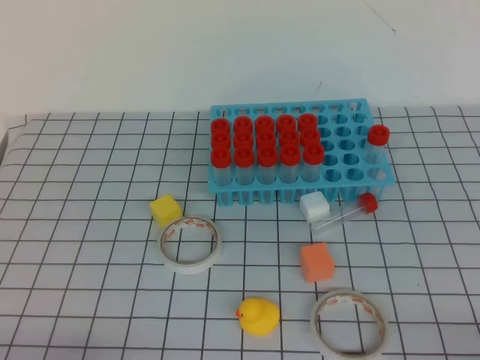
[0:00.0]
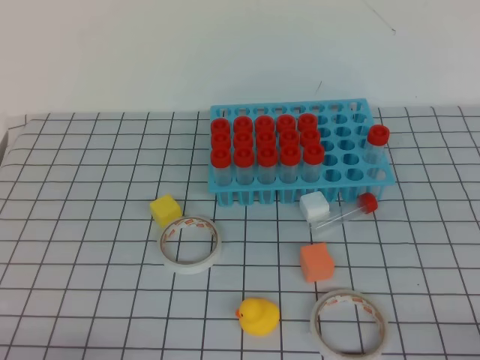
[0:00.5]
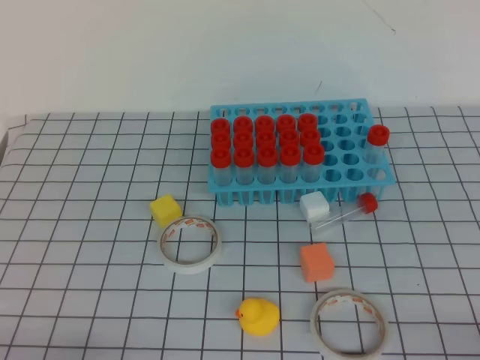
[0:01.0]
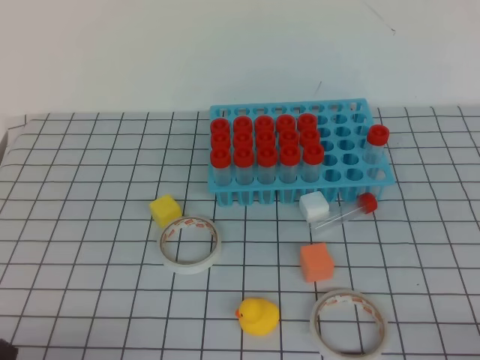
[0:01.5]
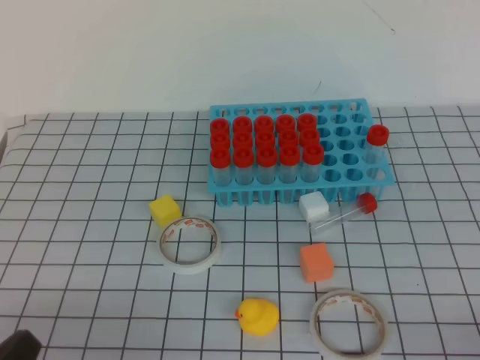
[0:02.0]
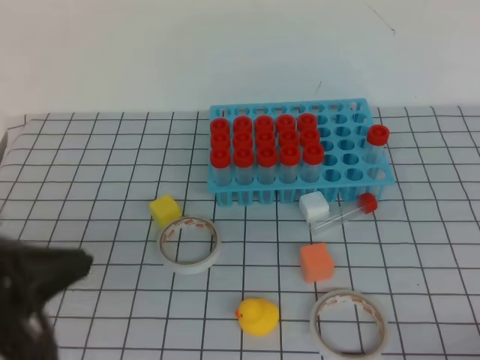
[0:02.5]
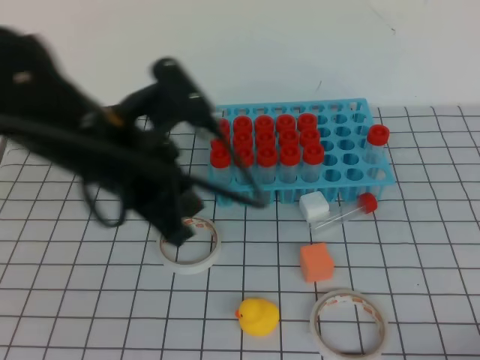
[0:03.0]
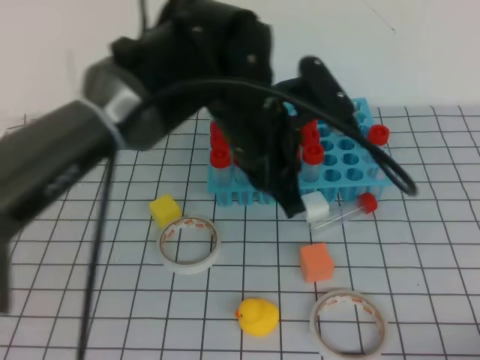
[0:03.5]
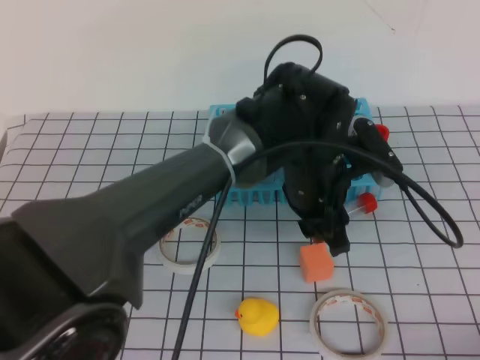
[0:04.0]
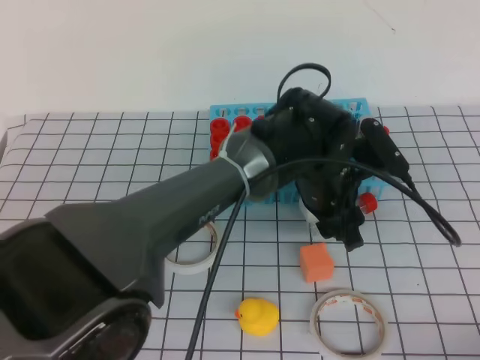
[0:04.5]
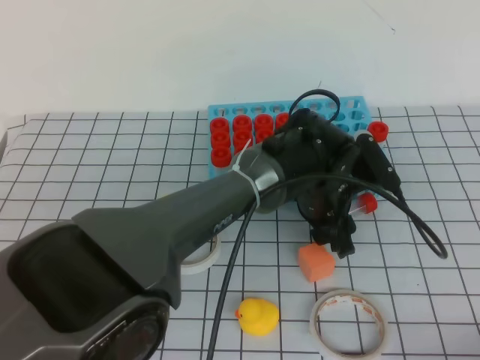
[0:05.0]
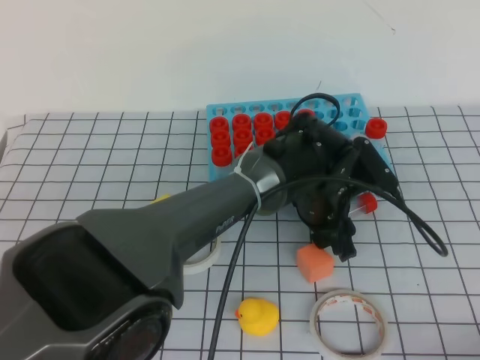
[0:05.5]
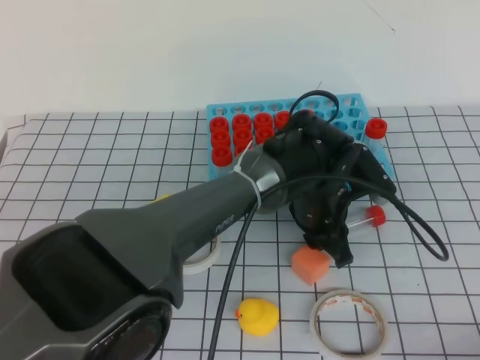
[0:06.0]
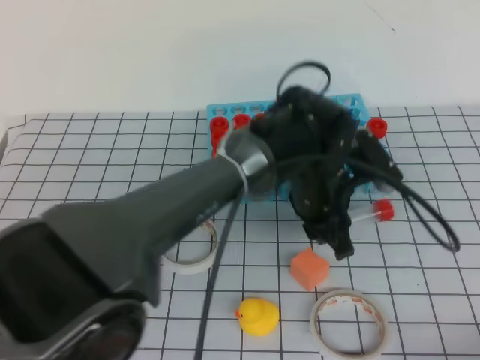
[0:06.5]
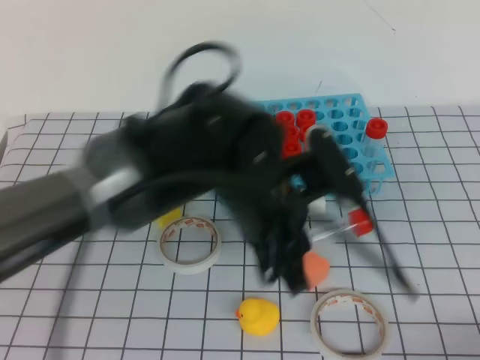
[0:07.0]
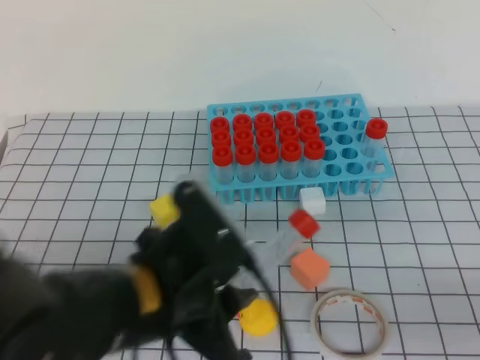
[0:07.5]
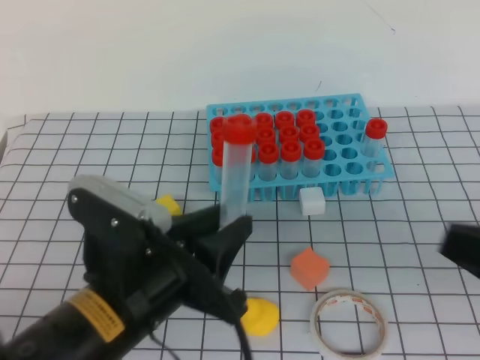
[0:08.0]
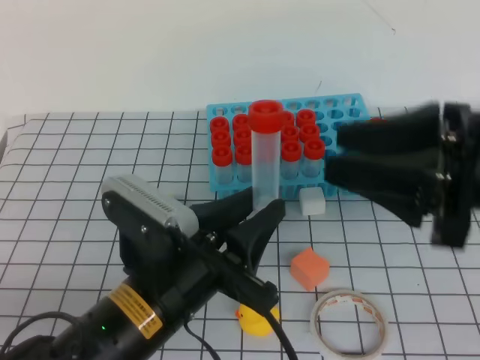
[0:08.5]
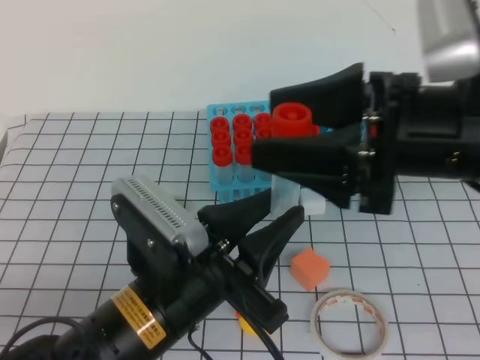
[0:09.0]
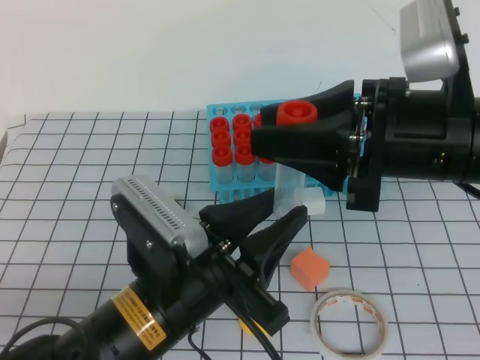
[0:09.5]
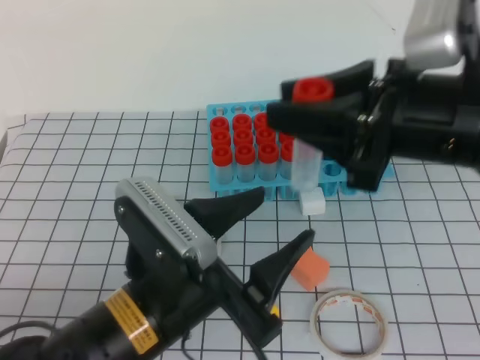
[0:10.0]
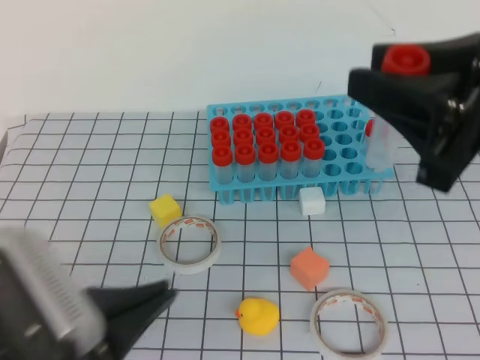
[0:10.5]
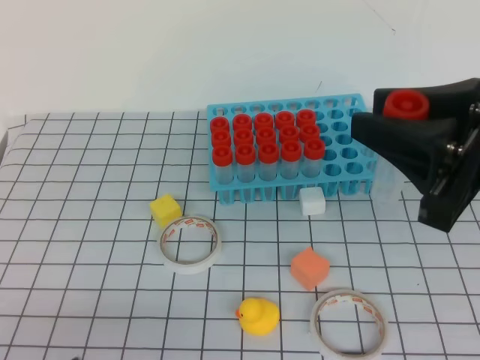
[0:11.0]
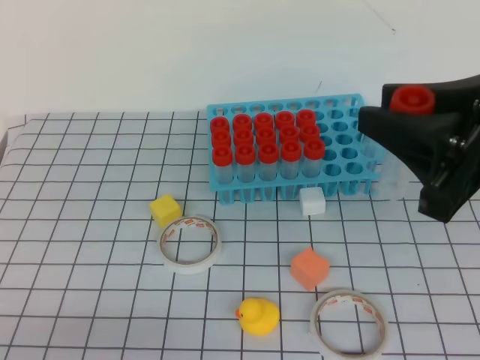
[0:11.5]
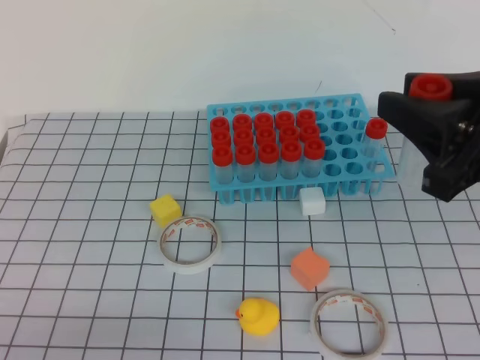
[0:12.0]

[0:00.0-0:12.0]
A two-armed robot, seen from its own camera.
0:02.0 to 0:04.0: The left gripper is displaced to the right and forward by approximately 40 cm, and opens up.
0:04.0 to 0:06.0: The left gripper travels downward by approximately 10 cm.
0:06.0 to 0:08.0: The right gripper shifts some 10 cm upward and forward. The left gripper travels backward and to the left by about 25 cm.
0:08.0 to 0:10.0: The left gripper opens up. Meanwhile the right gripper goes approximately 20 cm forward, to the left and upward, and opens up.
0:10.0 to 0:12.0: The right gripper moves to the right, some 5 cm, while the left gripper shifts some 20 cm to the left and backward, and closes up.

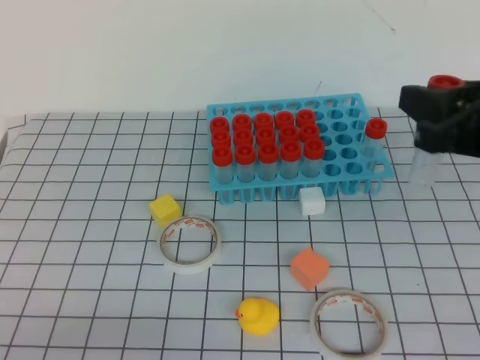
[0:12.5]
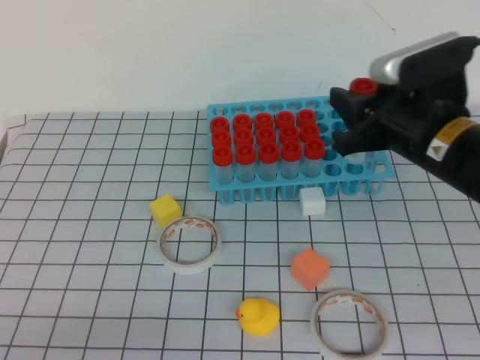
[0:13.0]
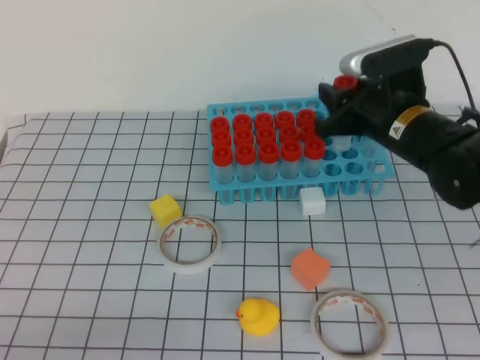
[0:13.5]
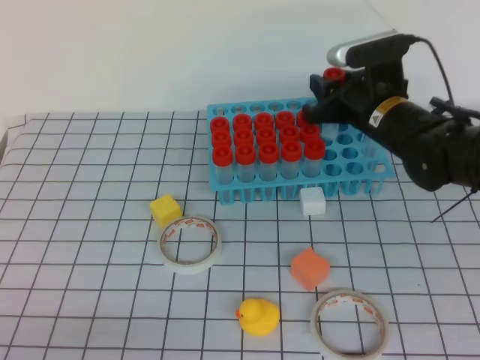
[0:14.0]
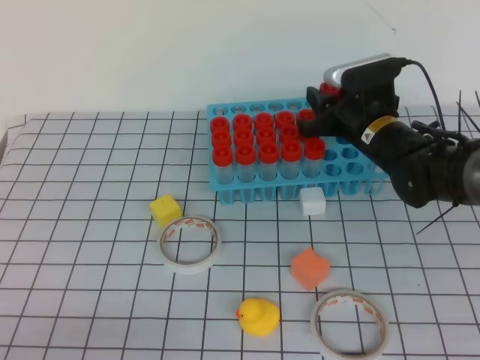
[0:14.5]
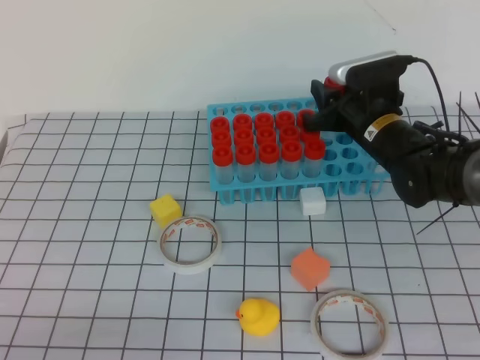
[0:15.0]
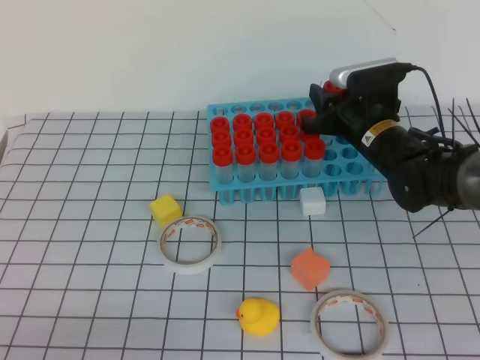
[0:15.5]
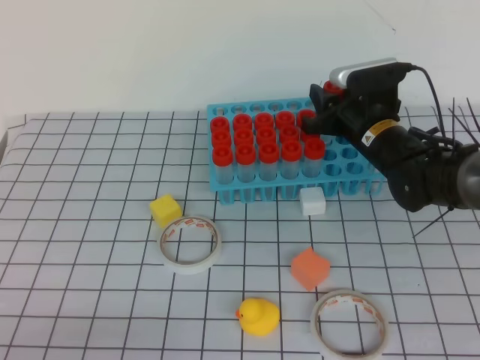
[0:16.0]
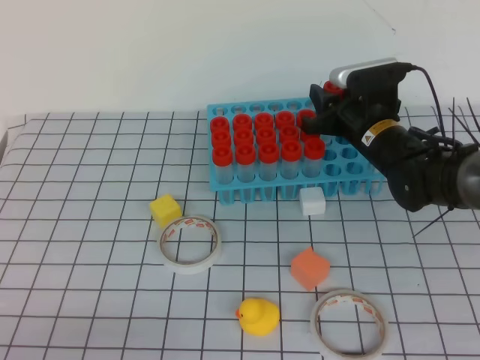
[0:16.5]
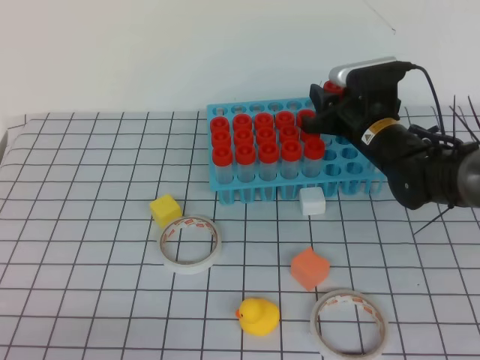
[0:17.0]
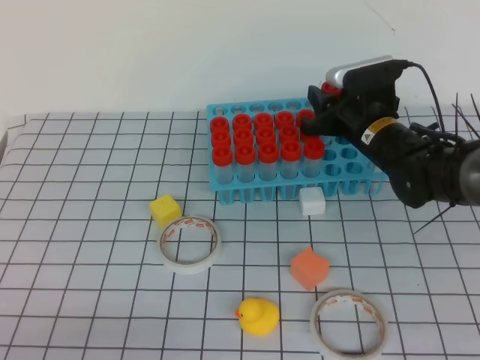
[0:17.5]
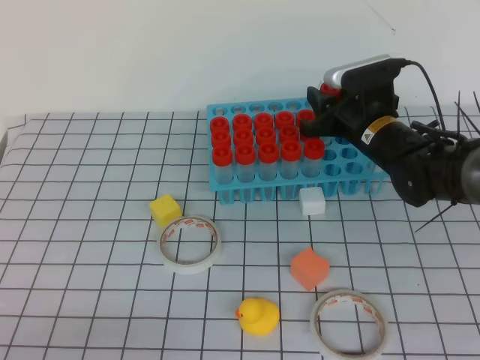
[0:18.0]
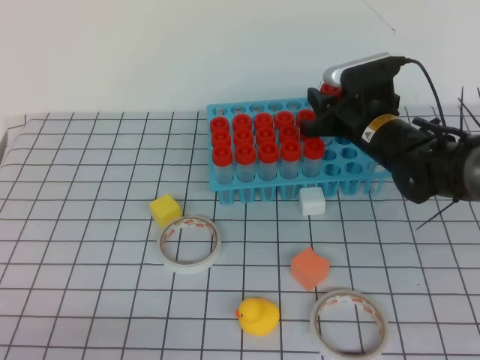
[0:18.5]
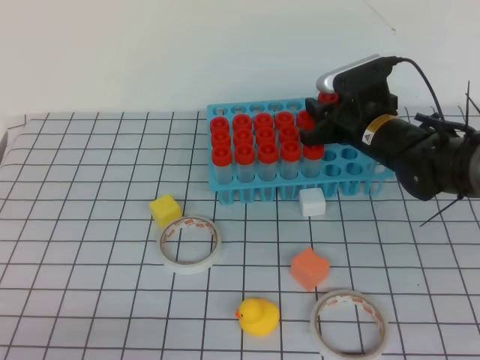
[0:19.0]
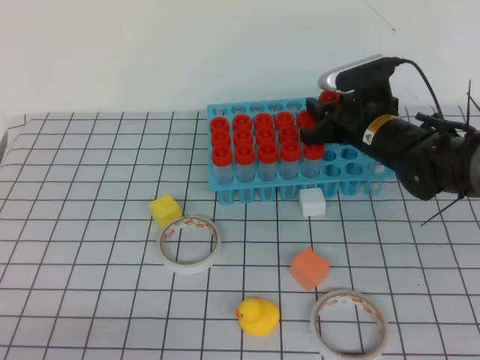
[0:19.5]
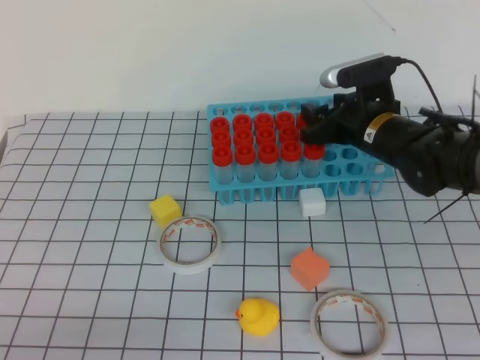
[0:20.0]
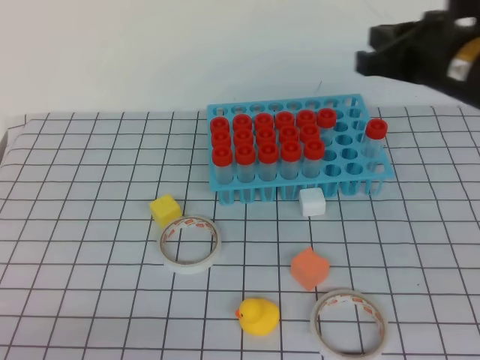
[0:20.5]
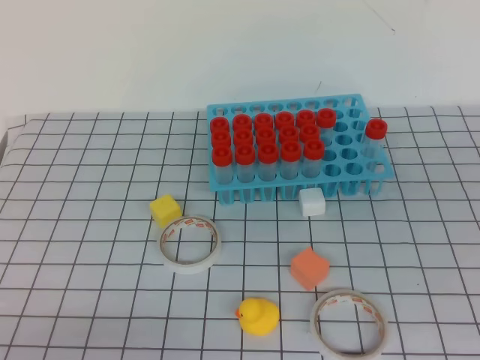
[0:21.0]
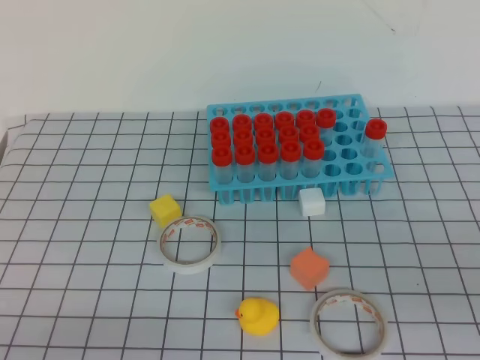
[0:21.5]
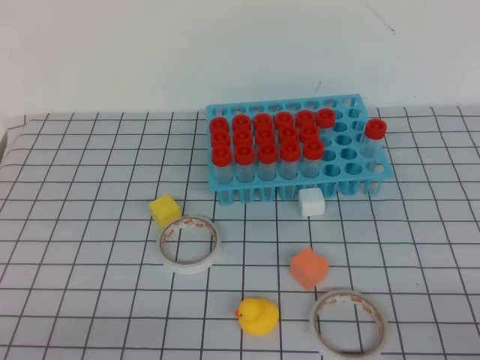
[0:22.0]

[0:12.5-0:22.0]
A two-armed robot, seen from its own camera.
0:12.5 to 0:14.5: The right gripper heads forward and downward, covering some 25 cm.
0:14.5 to 0:16.5: The grippers stay close to where they were, moving slightly.
0:16.5 to 0:18.0: The two grippers keep their place.
0:18.0 to 0:20.0: The right gripper opens its fingers.
0:20.0 to 0:22.0: The right gripper moves backward and to the right, roughly 40 cm, and closes up.
